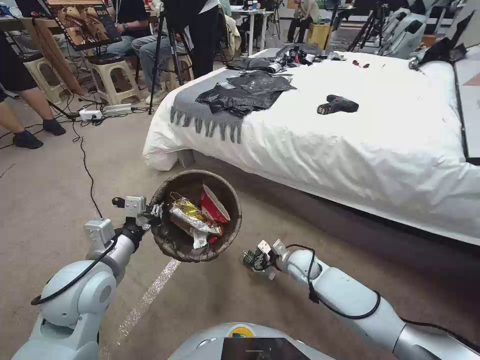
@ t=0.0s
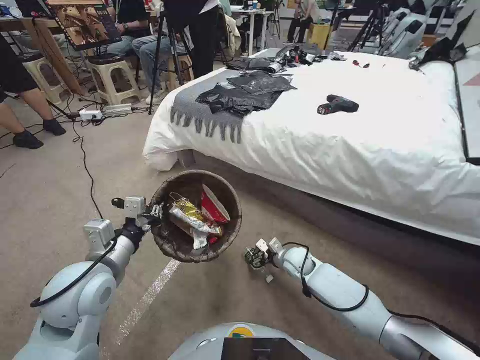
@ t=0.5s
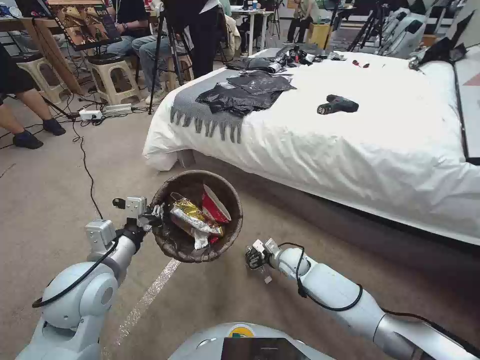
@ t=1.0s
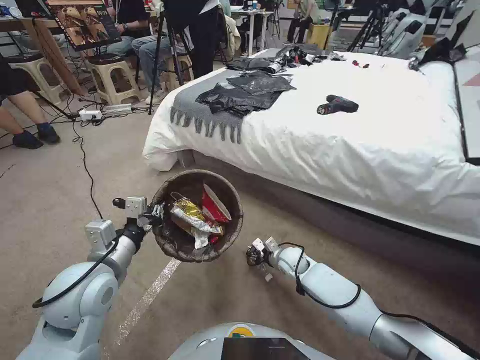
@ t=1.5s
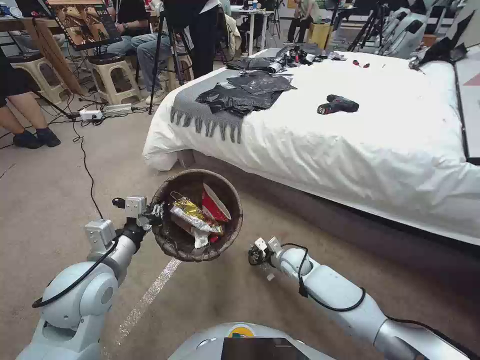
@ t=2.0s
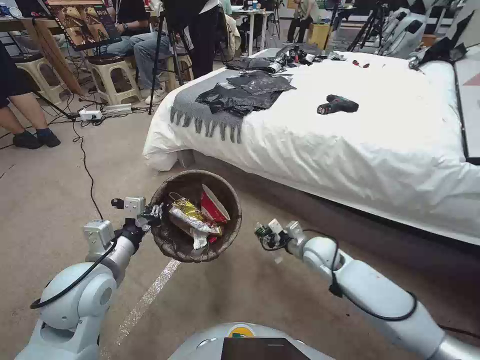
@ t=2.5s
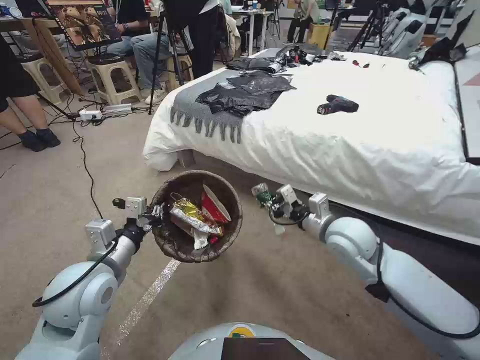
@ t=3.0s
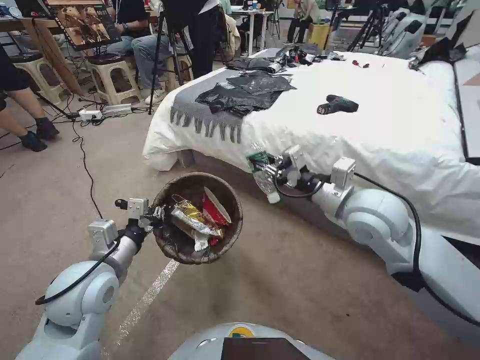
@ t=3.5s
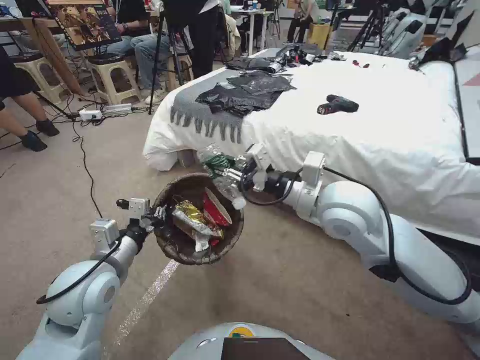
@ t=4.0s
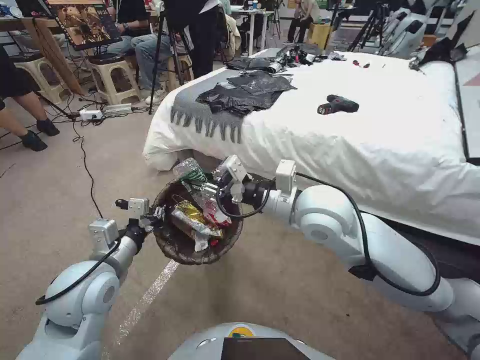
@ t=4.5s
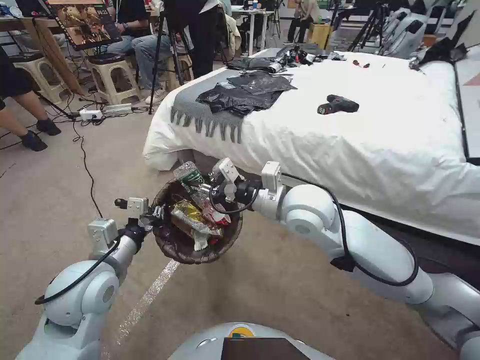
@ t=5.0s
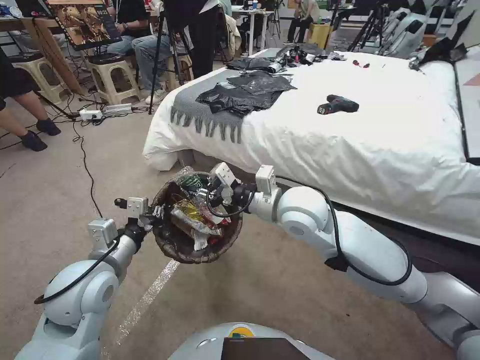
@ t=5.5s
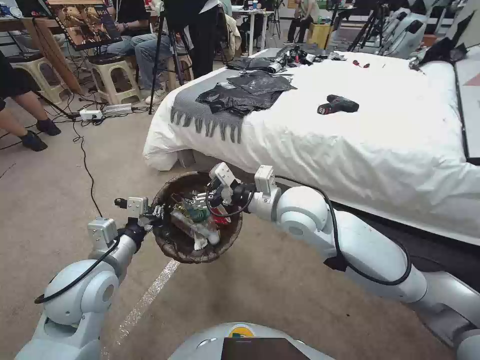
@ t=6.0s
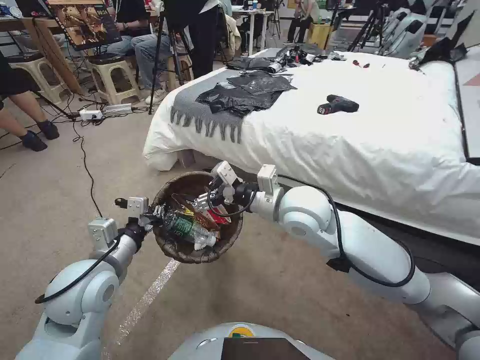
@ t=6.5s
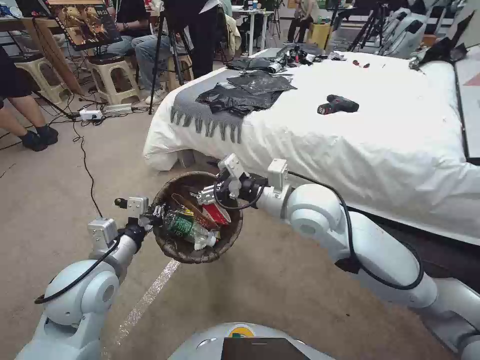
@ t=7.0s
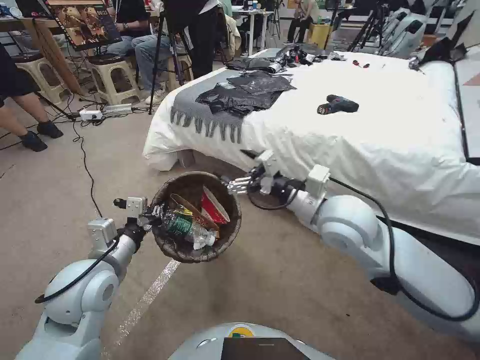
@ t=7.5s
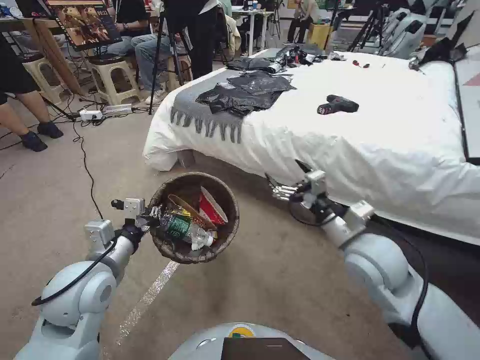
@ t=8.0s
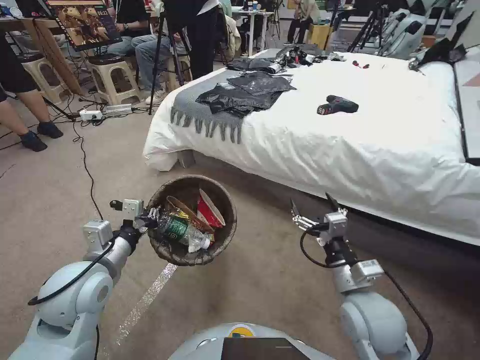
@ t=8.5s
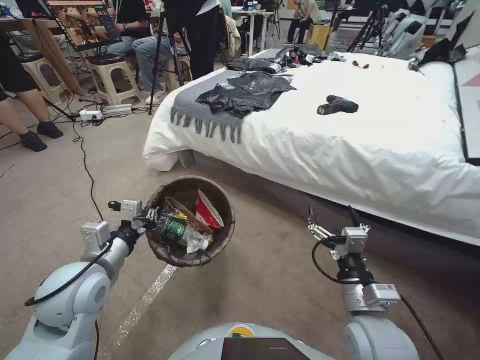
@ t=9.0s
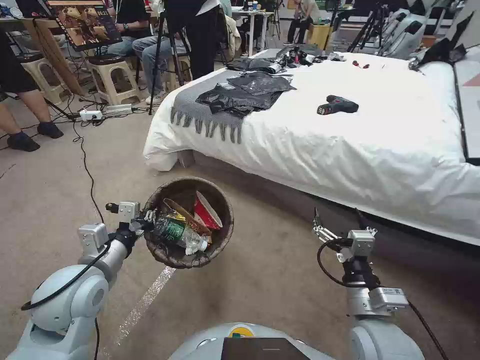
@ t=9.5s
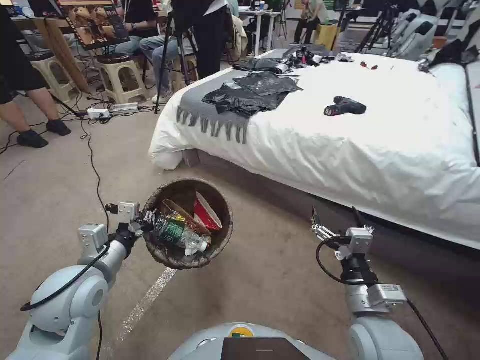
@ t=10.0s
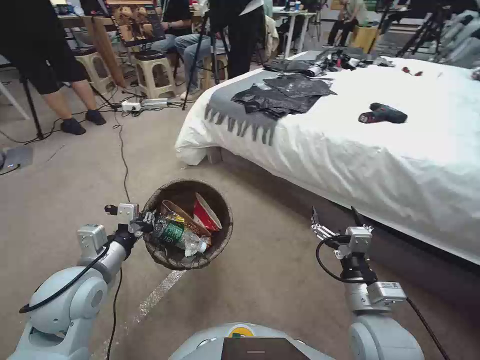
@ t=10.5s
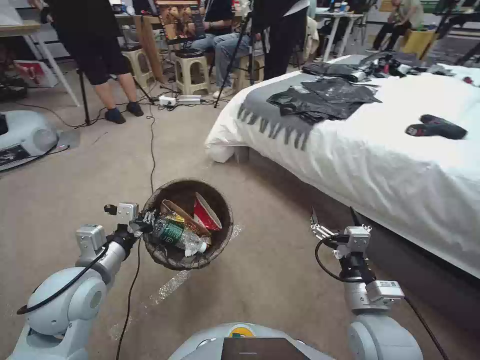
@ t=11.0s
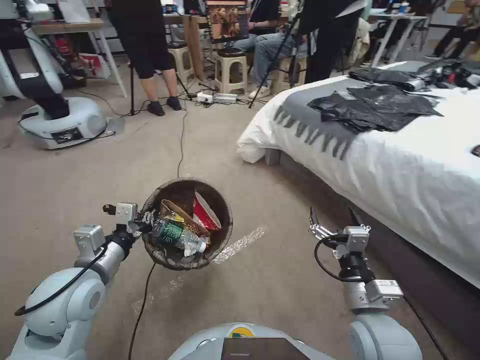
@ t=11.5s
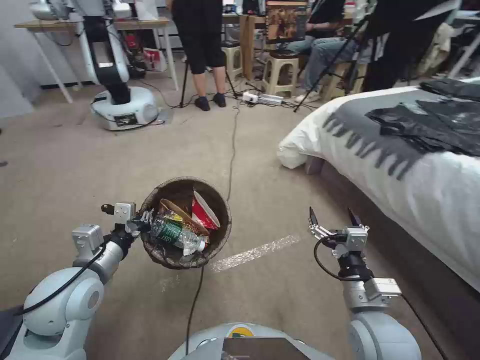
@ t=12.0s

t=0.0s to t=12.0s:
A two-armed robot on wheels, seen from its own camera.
Task of the whole recording: Pick up the trash bin, then pick up the garbage from the floor and place it into the trash bin.
t=0.0s to t=2.0s: The right gripper closes its fingers.
t=2.0s to t=4.0s: The right gripper heads upward, covering some 40 cm.
t=4.0s to t=6.0s: The right gripper heads to the left, covering approximately 5 cm, and opens up.
t=6.0s to t=8.0s: The right gripper goes some 15 cm to the right and backward.
t=8.0s to t=10.0s: The right gripper is displaced backward and downward by about 15 cm.

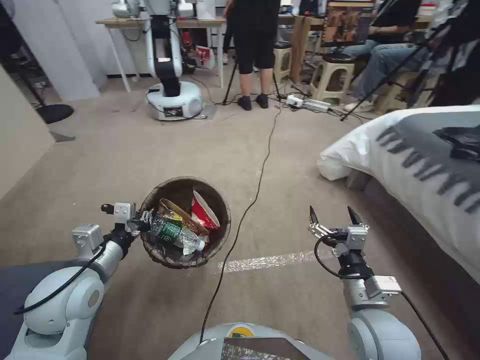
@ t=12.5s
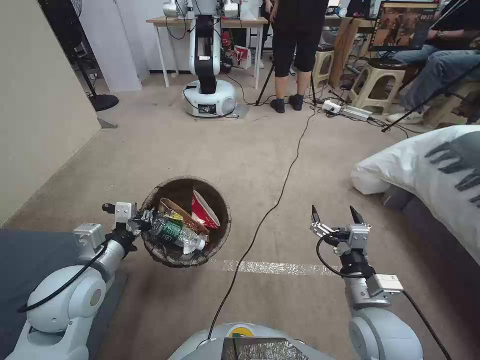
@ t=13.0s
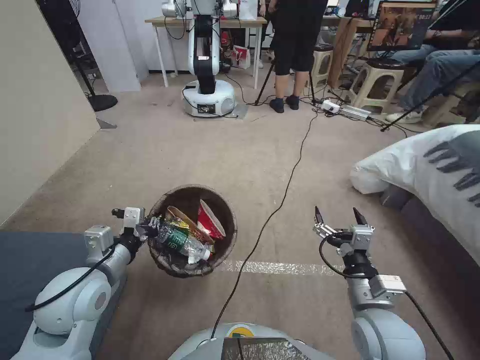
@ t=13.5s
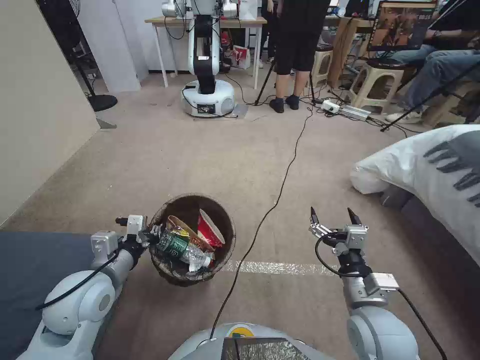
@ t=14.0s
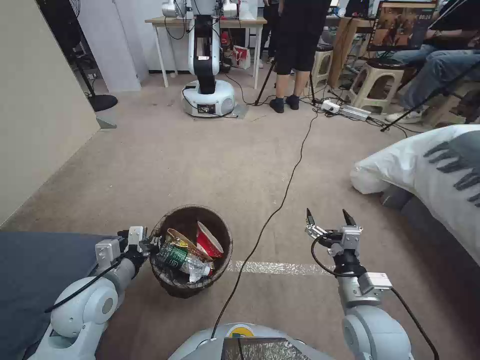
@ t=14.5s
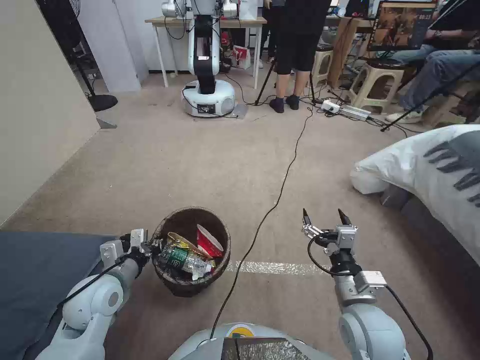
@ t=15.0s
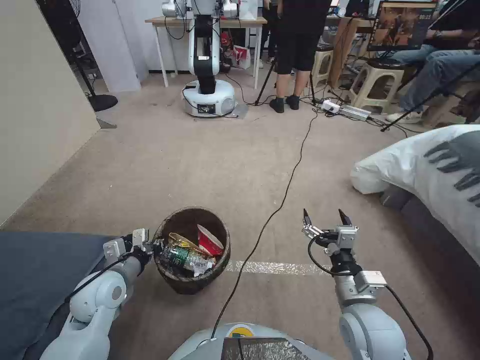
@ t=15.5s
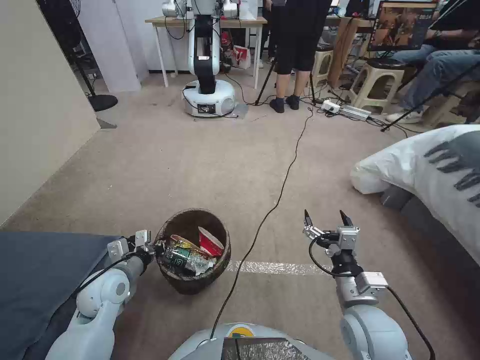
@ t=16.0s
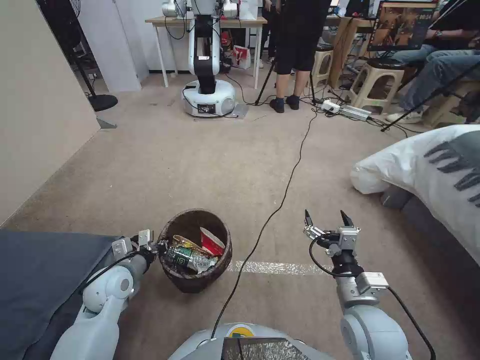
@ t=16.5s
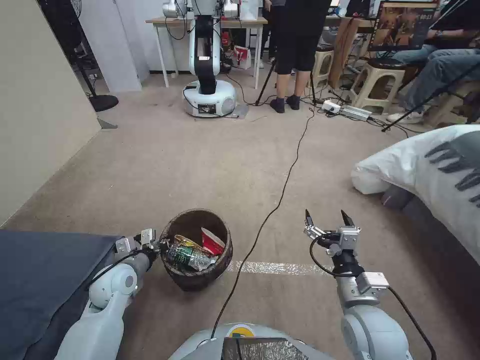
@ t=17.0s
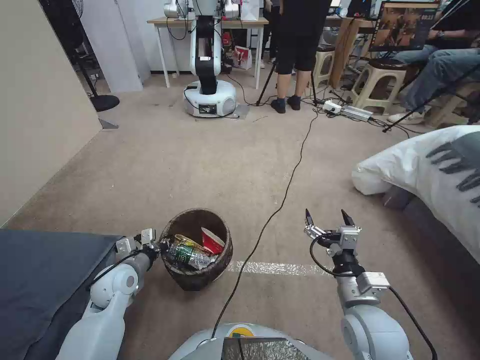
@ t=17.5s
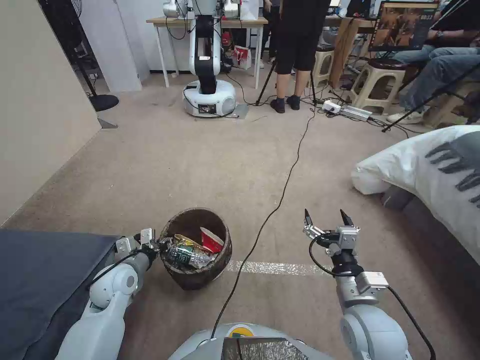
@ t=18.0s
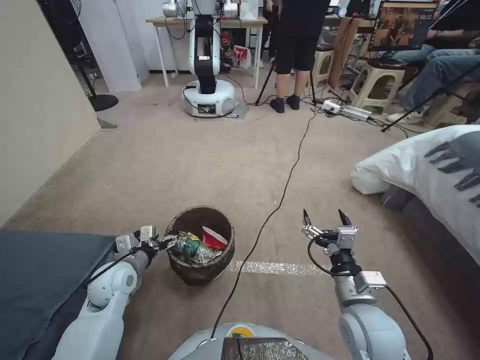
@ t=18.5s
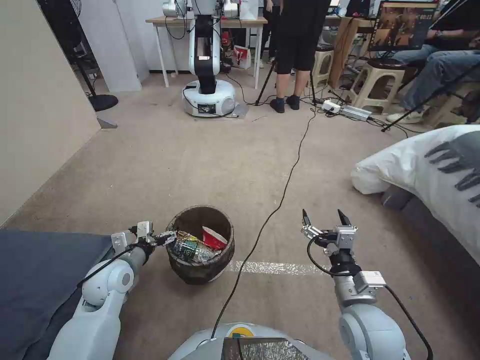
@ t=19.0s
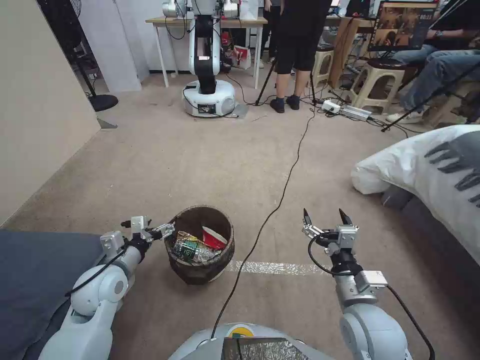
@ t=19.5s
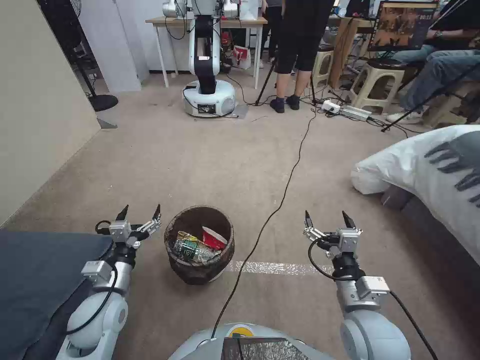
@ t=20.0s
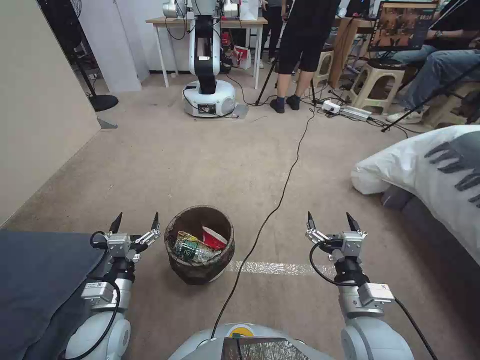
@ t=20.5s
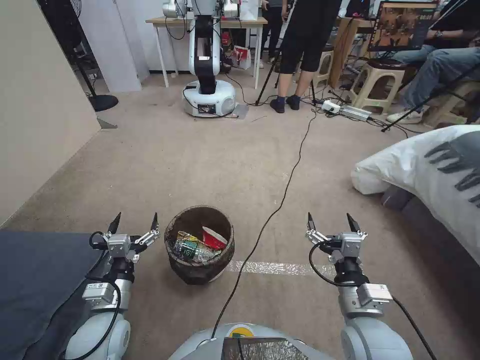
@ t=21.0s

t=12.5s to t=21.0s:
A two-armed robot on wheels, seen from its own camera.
Task of the whole recording: Pick up the trash bin, then pick up the garbage from the floor and place it into the trash bin.
t=12.5s to t=14.5s: The left gripper goes approximately 5 cm downward.
t=14.5s to t=16.5s: The left gripper heads downward, covering about 10 cm.
t=16.5s to t=19.0s: The left gripper opens up.
t=19.0s to t=21.0s: The left gripper moves backward, about 10 cm.
